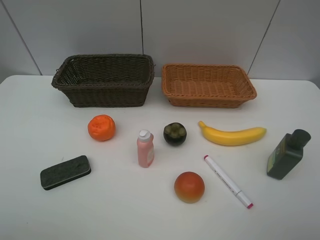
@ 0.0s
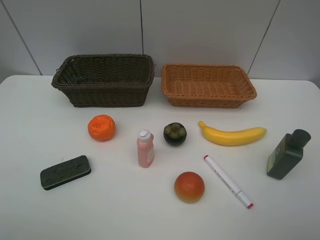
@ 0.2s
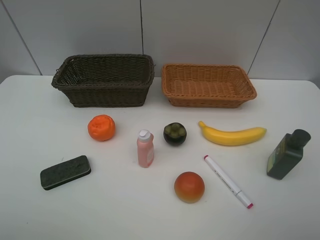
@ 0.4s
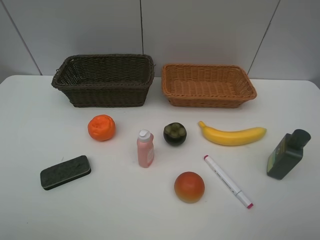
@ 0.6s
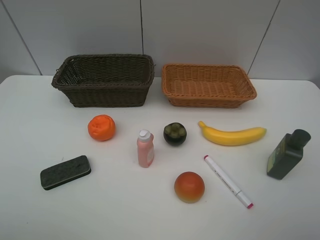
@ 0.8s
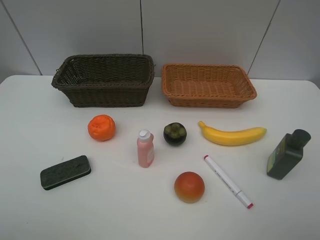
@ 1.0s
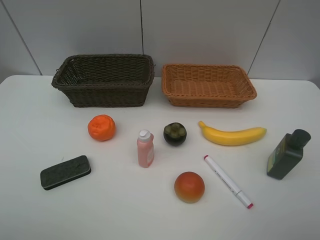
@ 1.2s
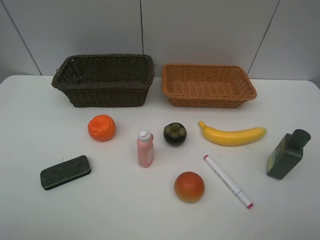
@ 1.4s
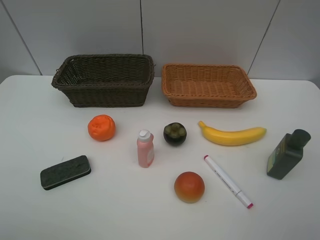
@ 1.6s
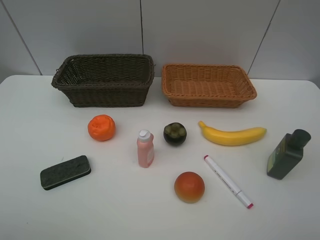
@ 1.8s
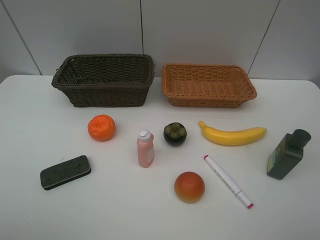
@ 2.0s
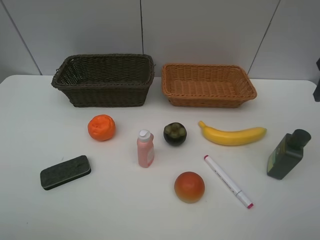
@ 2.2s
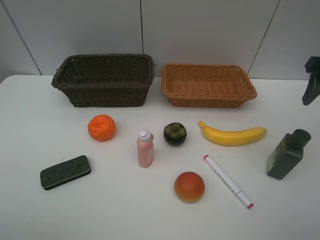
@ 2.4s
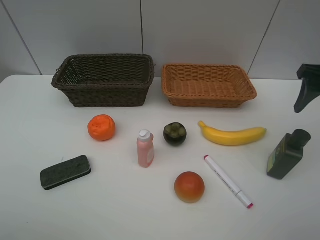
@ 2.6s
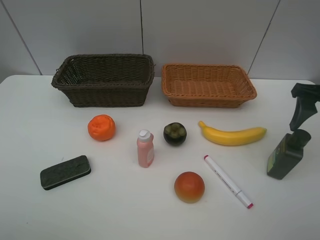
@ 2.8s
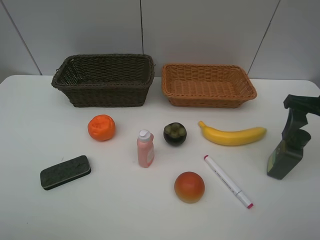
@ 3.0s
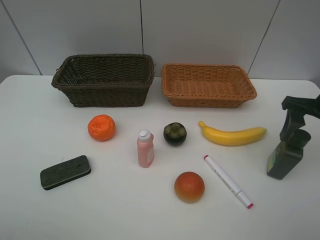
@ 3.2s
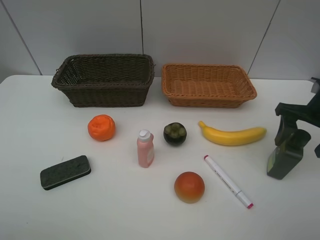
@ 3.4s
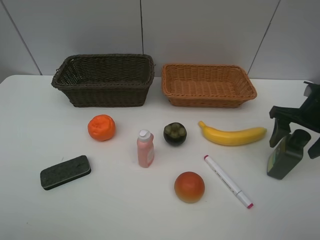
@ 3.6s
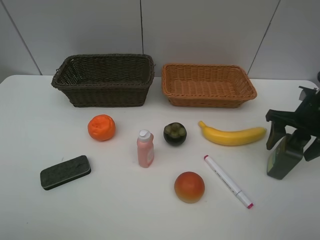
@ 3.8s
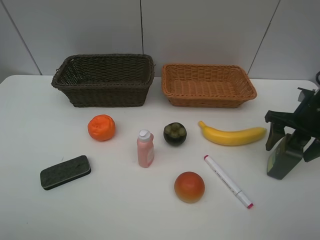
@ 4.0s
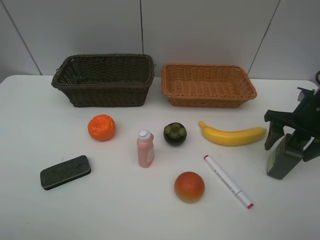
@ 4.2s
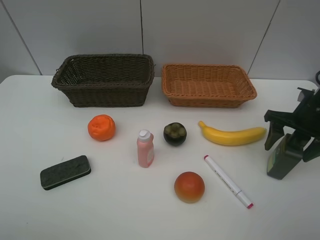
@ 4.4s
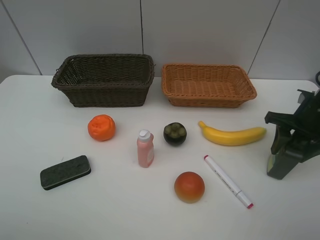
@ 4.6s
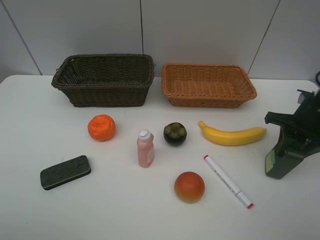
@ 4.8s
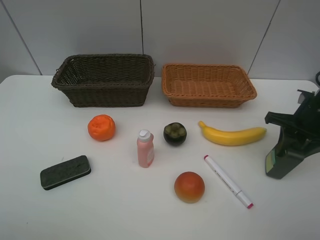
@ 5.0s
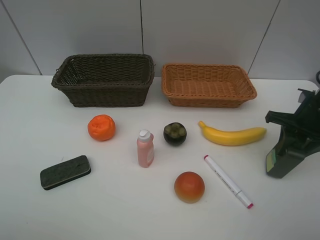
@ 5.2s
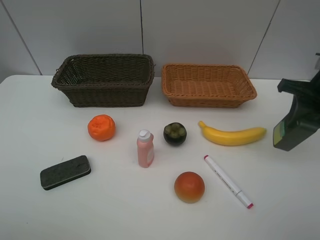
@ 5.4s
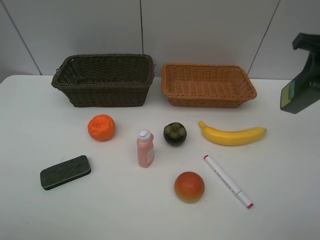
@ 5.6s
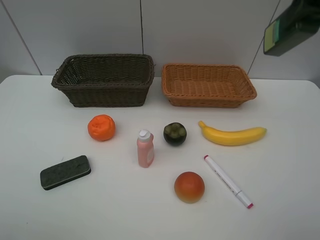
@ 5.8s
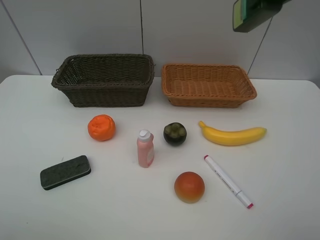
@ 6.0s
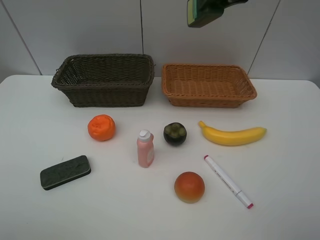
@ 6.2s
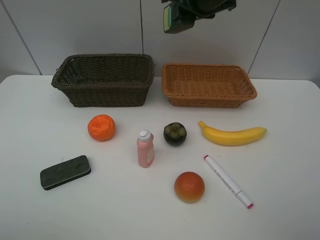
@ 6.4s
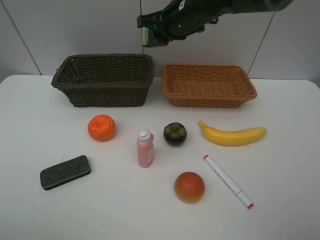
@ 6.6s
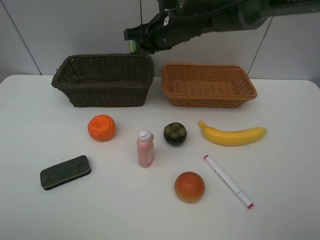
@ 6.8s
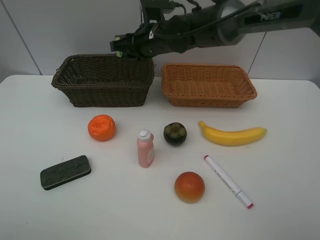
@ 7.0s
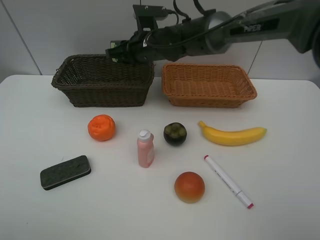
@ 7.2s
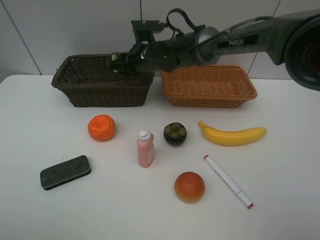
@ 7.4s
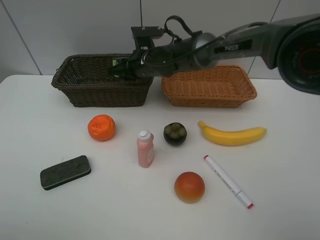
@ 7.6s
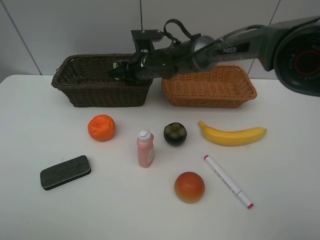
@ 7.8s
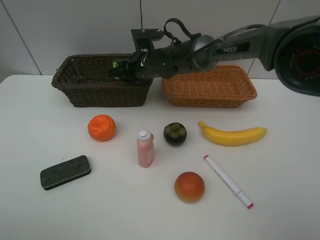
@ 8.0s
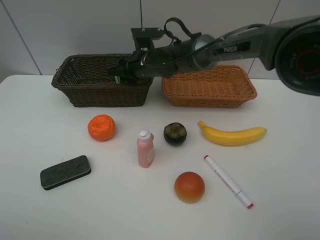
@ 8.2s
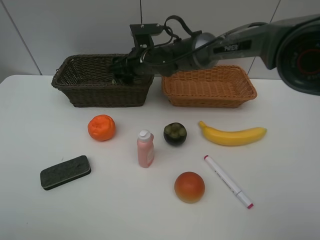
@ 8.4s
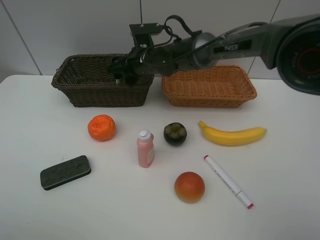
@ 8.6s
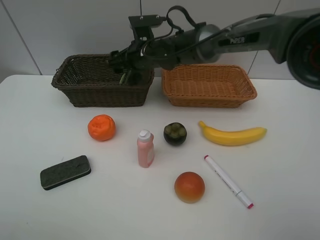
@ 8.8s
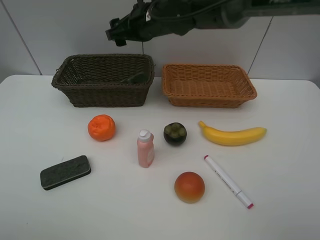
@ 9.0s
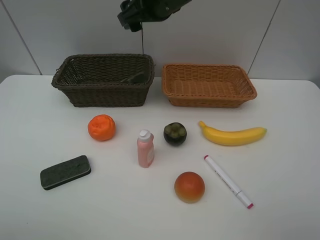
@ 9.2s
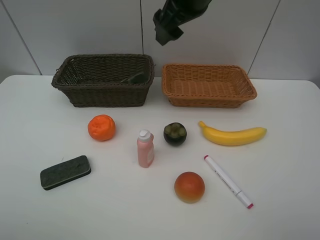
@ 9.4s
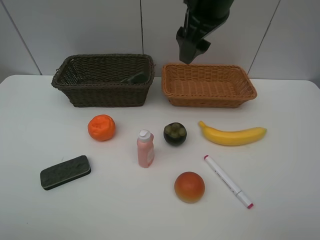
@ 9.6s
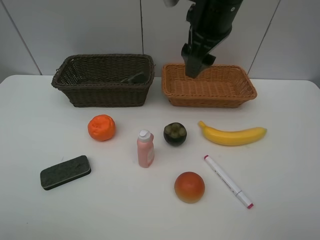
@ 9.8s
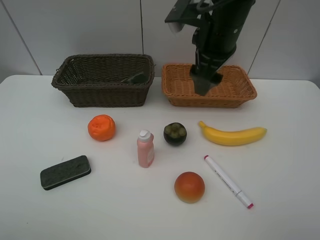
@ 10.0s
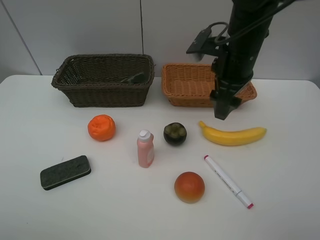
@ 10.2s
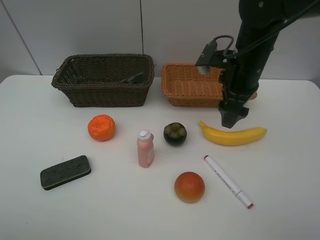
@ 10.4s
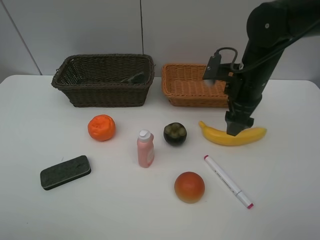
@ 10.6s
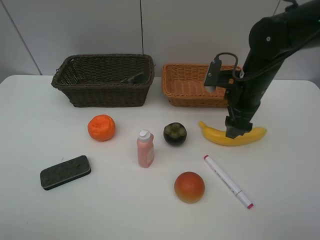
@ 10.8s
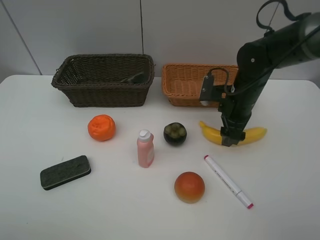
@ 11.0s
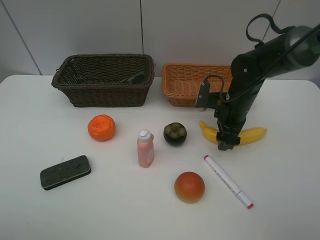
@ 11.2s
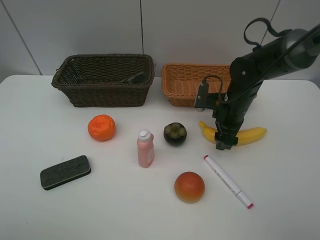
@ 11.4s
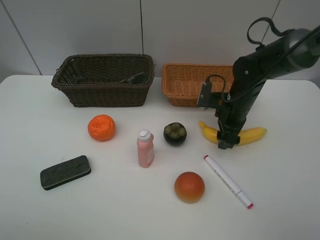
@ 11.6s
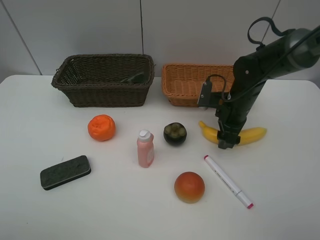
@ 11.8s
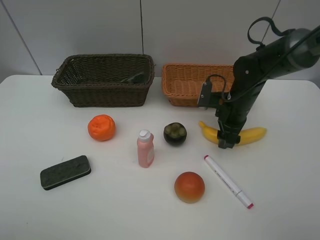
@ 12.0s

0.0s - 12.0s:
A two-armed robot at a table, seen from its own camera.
Task of the whole recording: Place multiple objects separately in different baskets.
Step, 0.0s - 5.2s: Pick up the hard facial cleanser with right gripper.
Step, 5.4s - 8.8s: Place the hard facial cleanser in the dark basket with right gripper.
1.6s - 3.0s: The right gripper moves forward and downward, roughly 20 cm.
3.0s - 4.4s: The right gripper travels downward by about 5 cm.
4.4s - 6.0s: The right gripper goes some 25 cm upward and to the left, and closes up.
6.0s - 7.6s: The right gripper goes approximately 35 cm downward, to the left and forward.
7.6s - 9.0s: The right gripper moves upward, approximately 10 cm, and opens its fingers.
9.0s - 10.4s: The right gripper goes about 20 cm to the right and backward.
10.4s - 12.0s: The right gripper is displaced downward by about 10 cm.

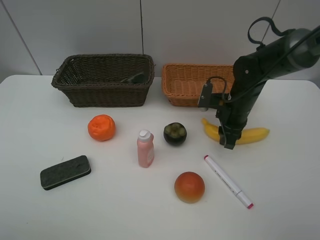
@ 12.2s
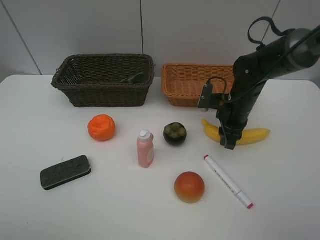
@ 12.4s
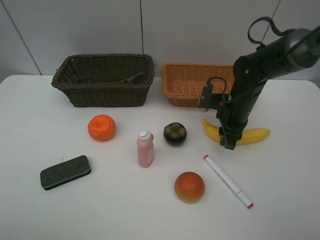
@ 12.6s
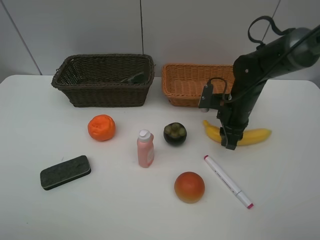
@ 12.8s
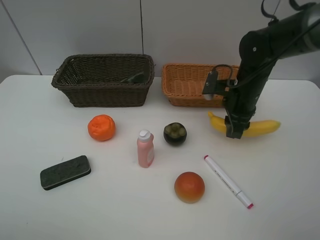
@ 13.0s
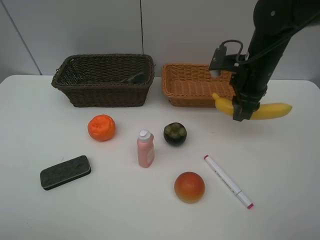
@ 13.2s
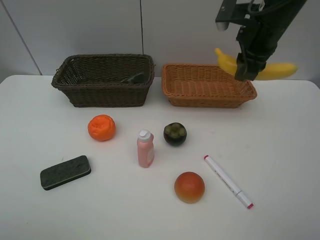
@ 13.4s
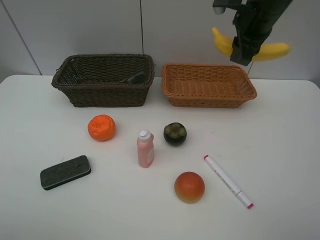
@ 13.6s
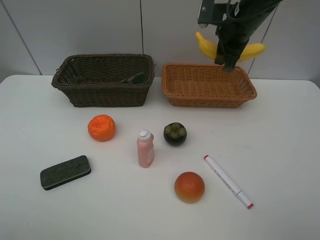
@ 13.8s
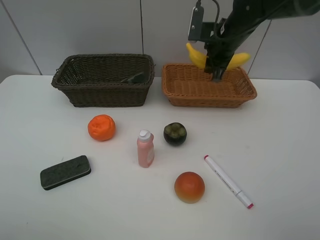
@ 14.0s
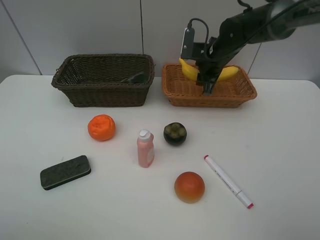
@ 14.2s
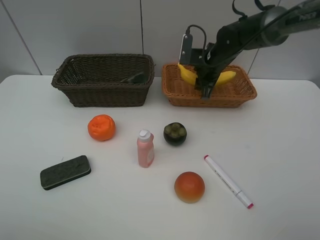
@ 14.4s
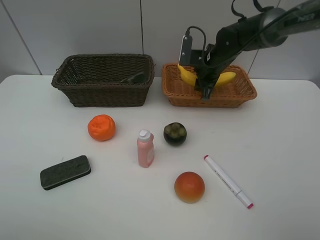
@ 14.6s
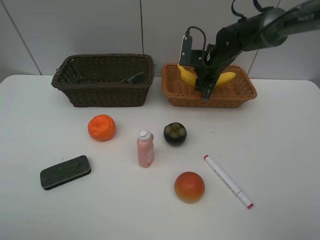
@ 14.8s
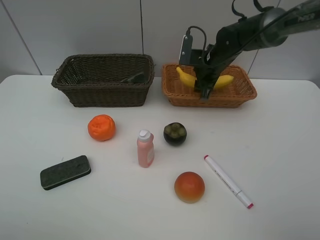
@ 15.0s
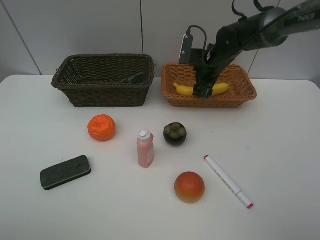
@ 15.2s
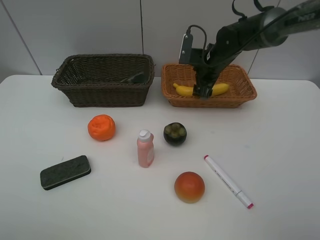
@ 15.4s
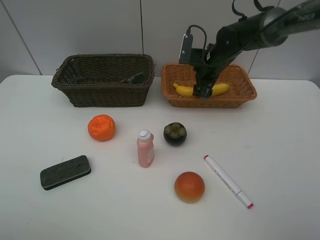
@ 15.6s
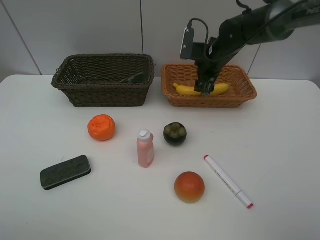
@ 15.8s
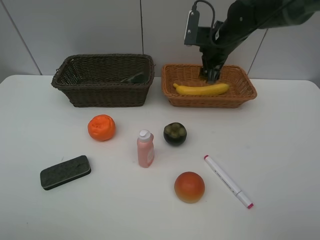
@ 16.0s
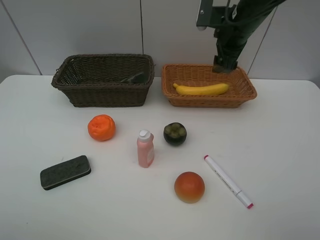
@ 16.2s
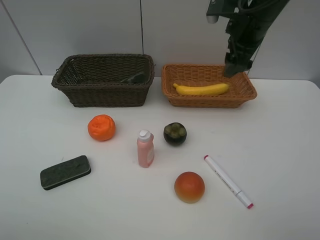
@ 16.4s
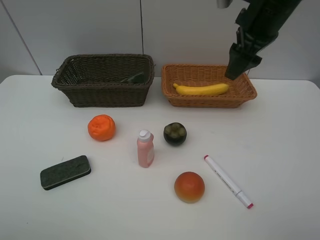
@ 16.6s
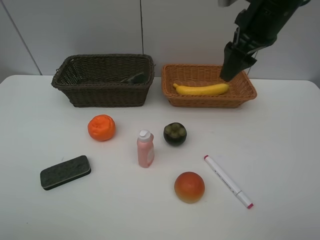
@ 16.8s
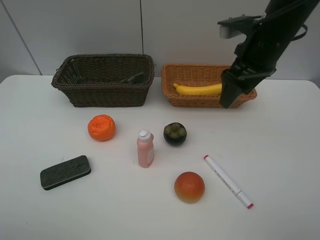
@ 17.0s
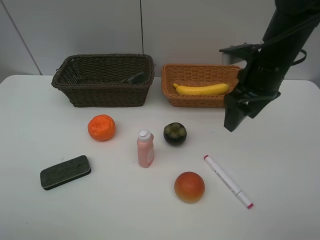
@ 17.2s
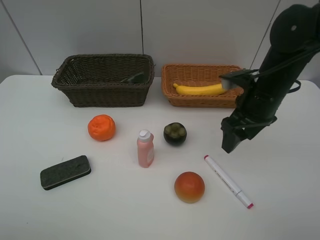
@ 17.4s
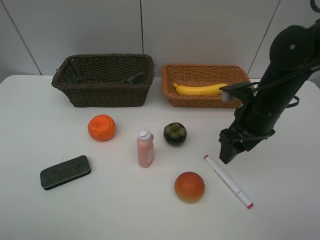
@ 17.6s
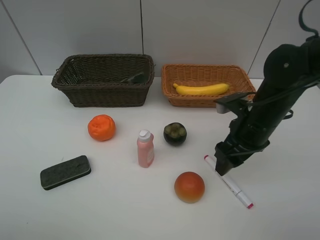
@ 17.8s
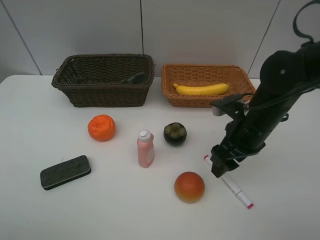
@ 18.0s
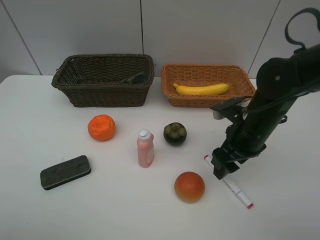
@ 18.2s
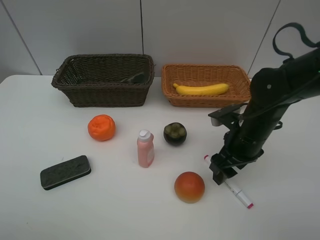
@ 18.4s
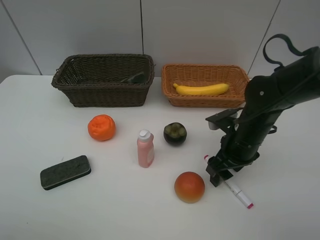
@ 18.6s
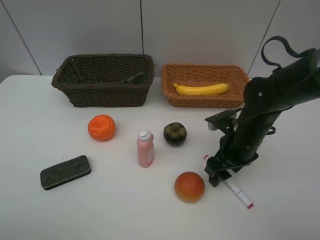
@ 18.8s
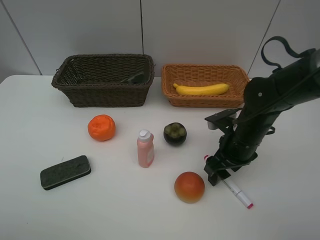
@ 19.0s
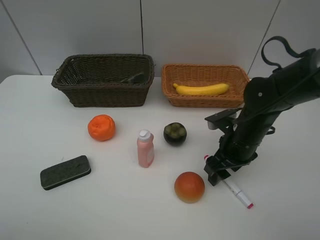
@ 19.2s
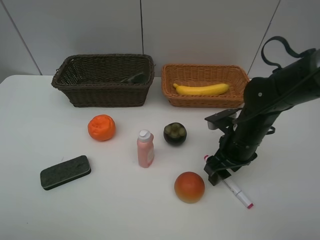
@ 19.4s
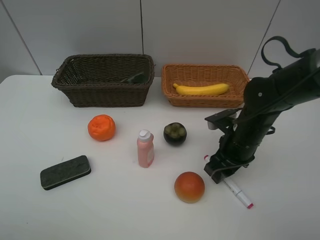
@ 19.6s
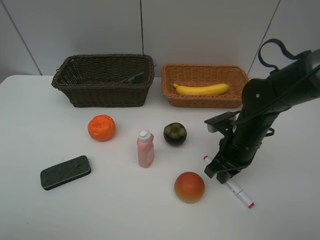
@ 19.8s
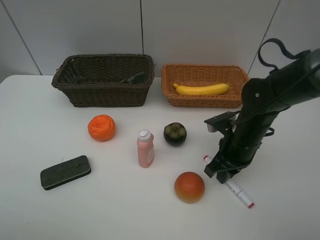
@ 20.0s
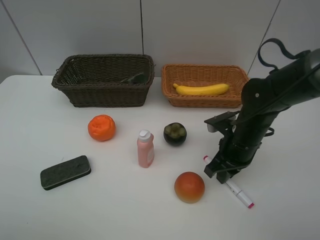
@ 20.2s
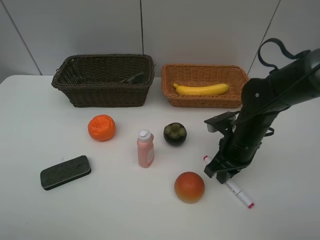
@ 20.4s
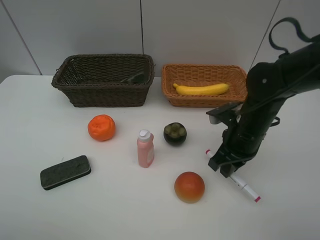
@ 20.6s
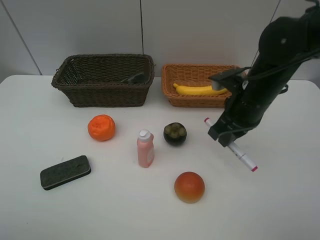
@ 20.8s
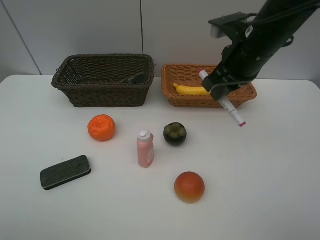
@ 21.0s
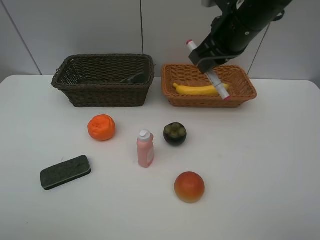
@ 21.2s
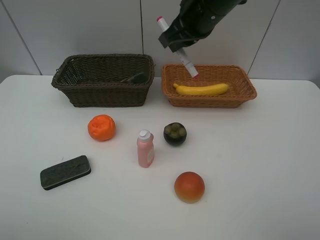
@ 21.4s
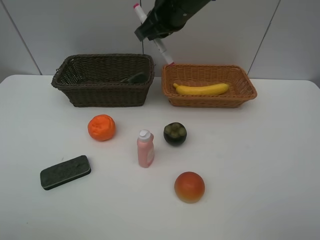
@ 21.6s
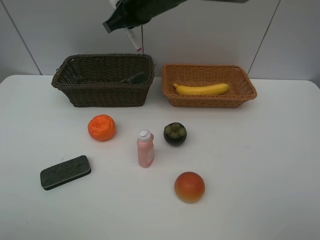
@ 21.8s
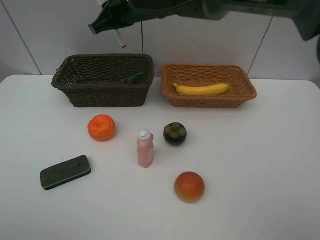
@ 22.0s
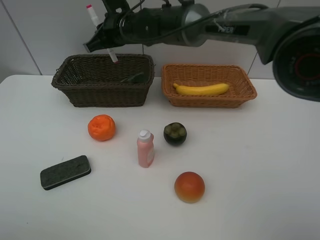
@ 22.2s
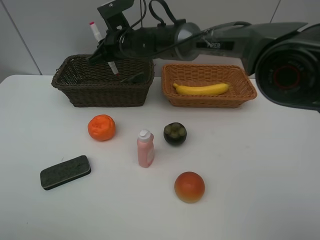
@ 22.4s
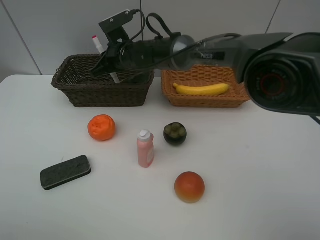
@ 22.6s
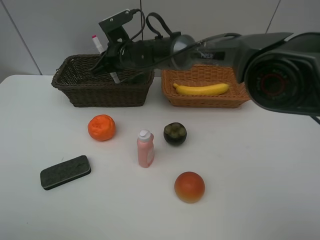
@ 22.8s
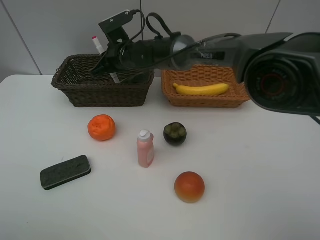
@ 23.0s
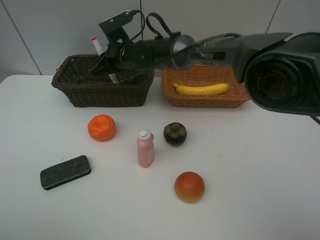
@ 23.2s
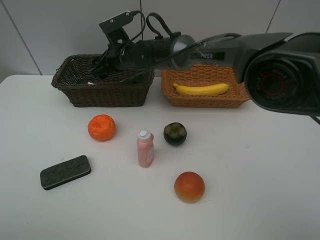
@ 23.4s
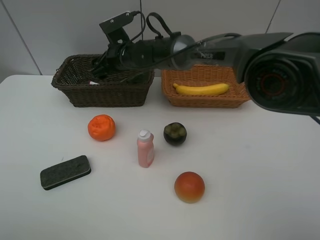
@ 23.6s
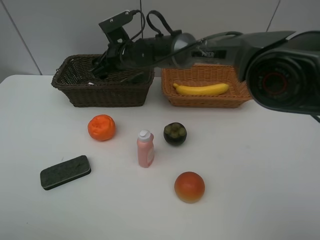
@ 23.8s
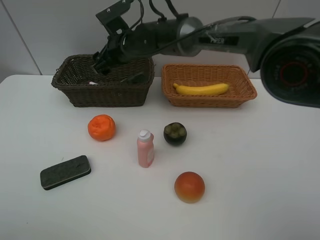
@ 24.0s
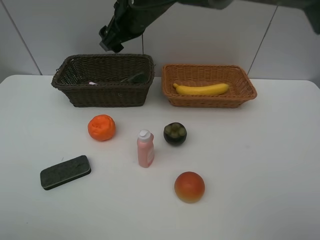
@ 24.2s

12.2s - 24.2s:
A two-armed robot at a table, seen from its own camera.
Task of the whole recording: Place multiple objects separately in different baskets.
Step, 13.2s - 15.8s: Place the banana in the light basket with right gripper.
Step, 16.0s - 20.6s: Pick up the red marker with right gripper.
Step, 20.8s - 23.8s: Place the red marker in the dark basket with right gripper.
12.2s - 13.8s: The right gripper shifts about 15 cm upward and forward.
13.8s - 15.2s: The right gripper heads downward, covering roughly 10 cm, and opens.
15.2s - 16.6s: The right gripper is displaced upward and backward by roughly 20 cm.
16.6s - 18.2s: The right gripper moves downward and backward, some 20 cm.
18.2s - 19.8s: The right gripper closes up.
19.8s - 21.2s: The right gripper goes roughly 20 cm upward.
21.2s - 22.6s: The right gripper goes about 25 cm to the left, downward and forward.
22.6s - 24.2s: The right gripper heads upward, covering some 10 cm, and opens its fingers.
